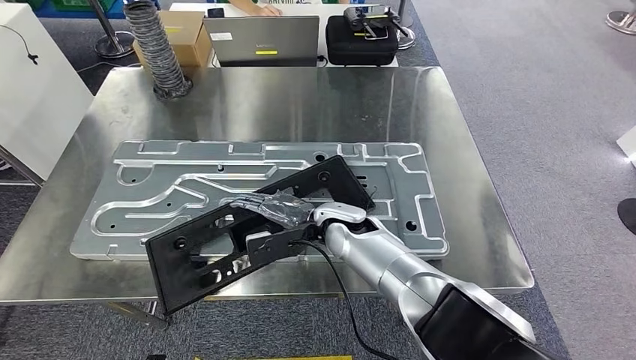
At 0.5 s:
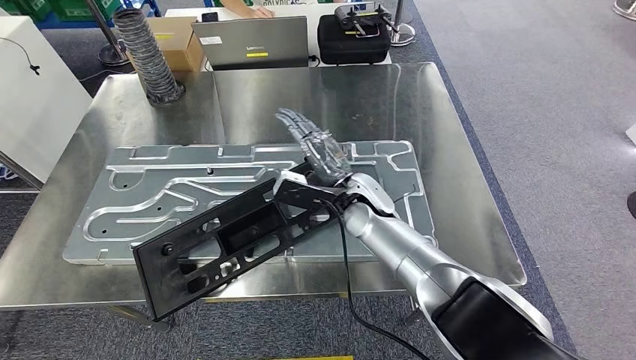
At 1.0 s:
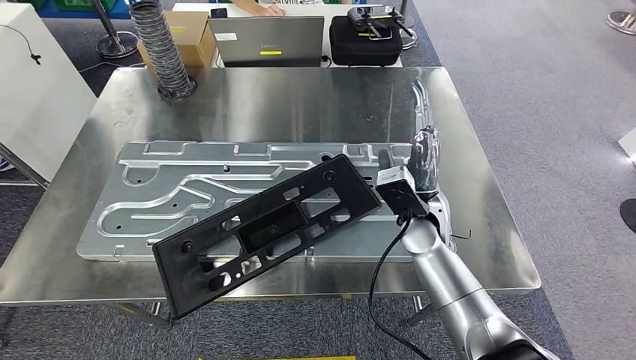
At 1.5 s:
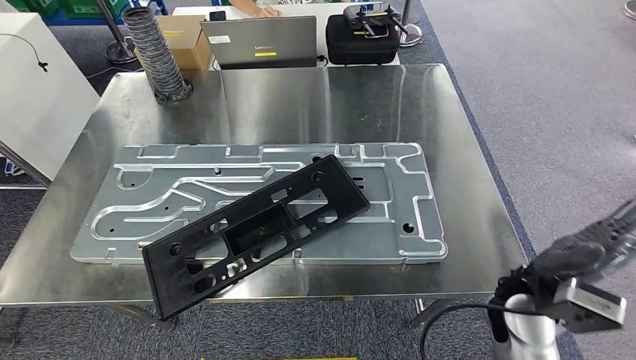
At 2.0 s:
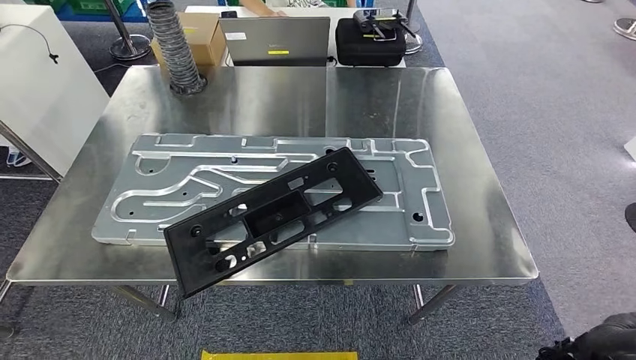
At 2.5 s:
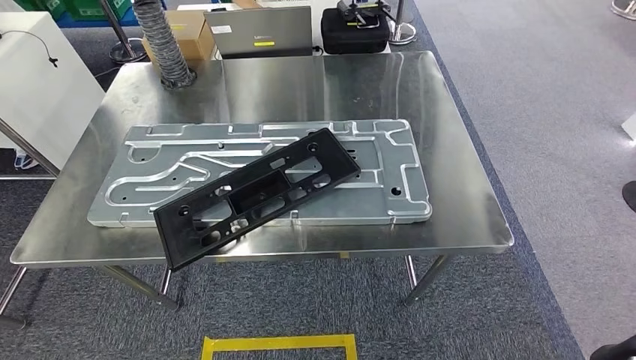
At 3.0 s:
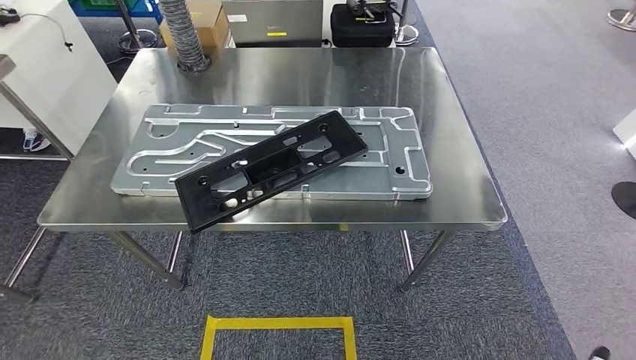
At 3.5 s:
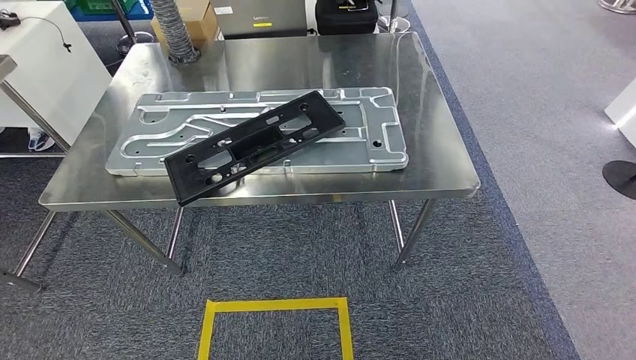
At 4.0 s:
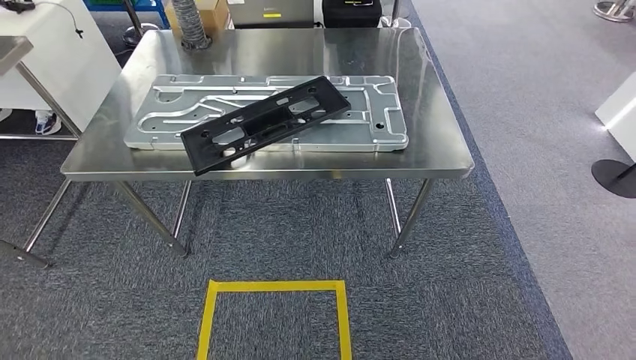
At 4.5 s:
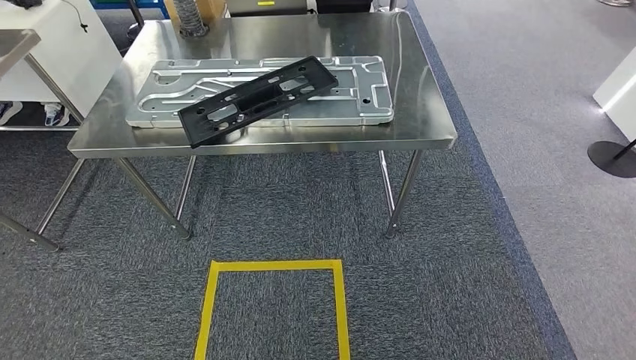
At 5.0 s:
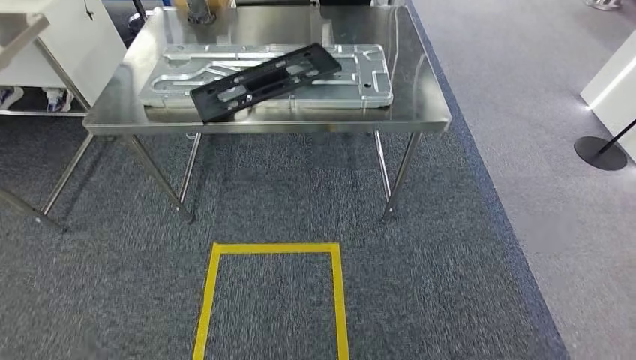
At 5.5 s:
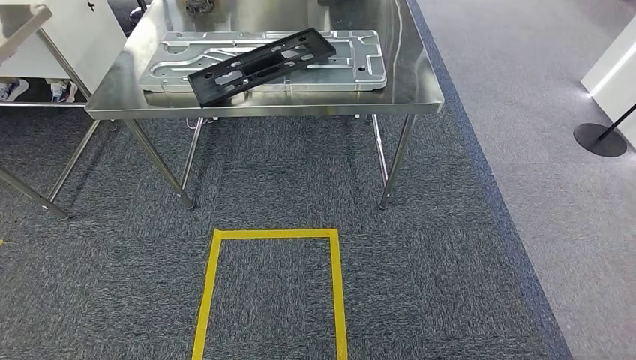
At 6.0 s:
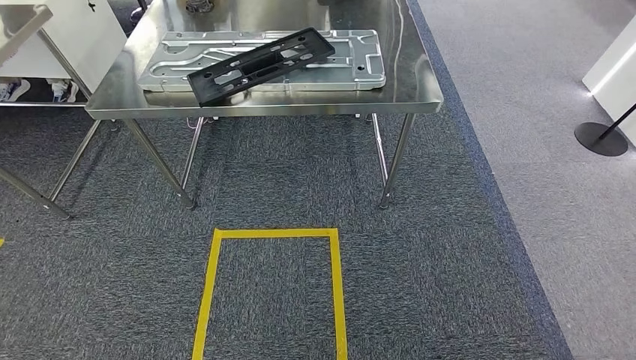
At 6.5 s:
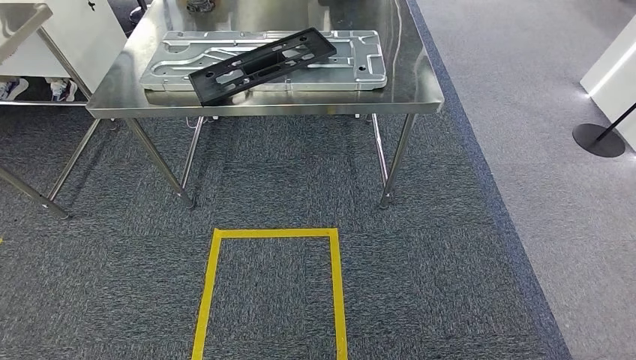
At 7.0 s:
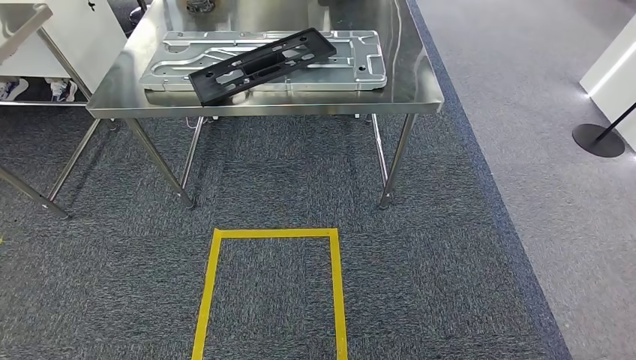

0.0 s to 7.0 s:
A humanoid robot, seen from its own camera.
Step, 2.0 to 7.0 s: Move to the initial position of the shelf.
5.0 to 7.0 s: There are only small adjustments of the hands.

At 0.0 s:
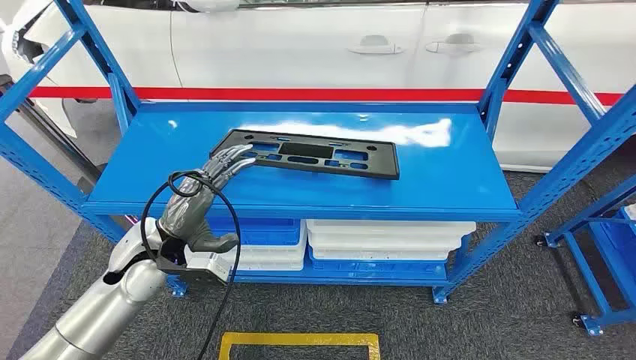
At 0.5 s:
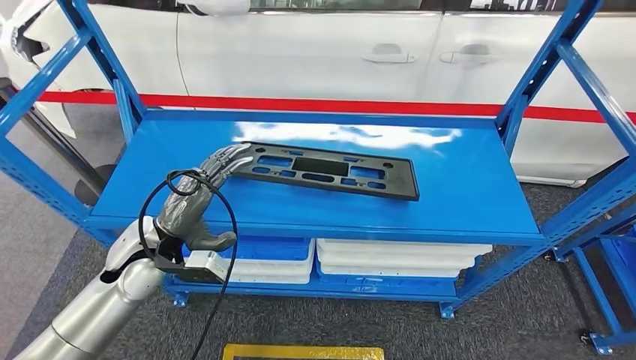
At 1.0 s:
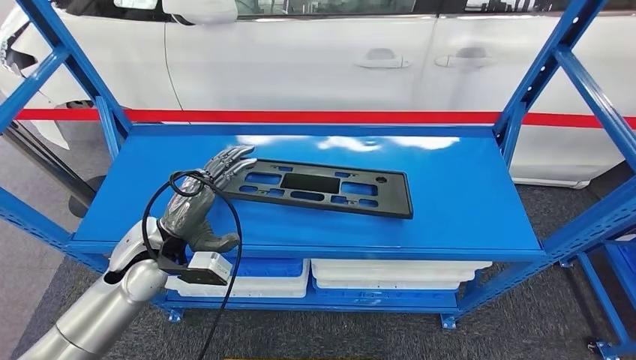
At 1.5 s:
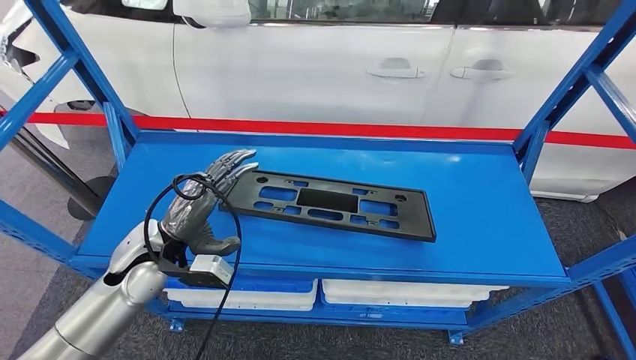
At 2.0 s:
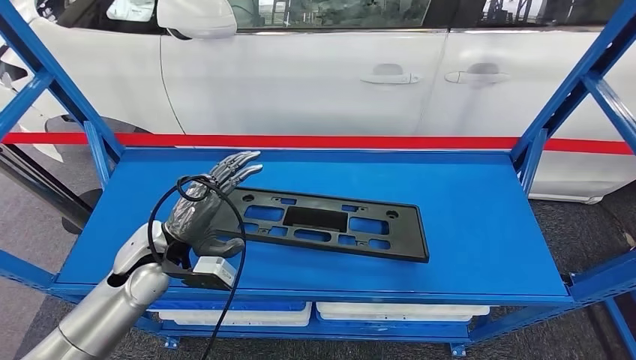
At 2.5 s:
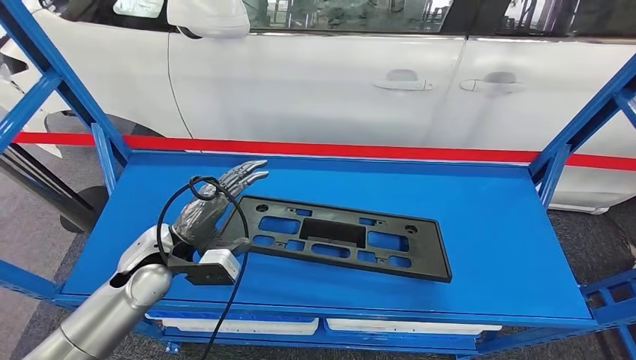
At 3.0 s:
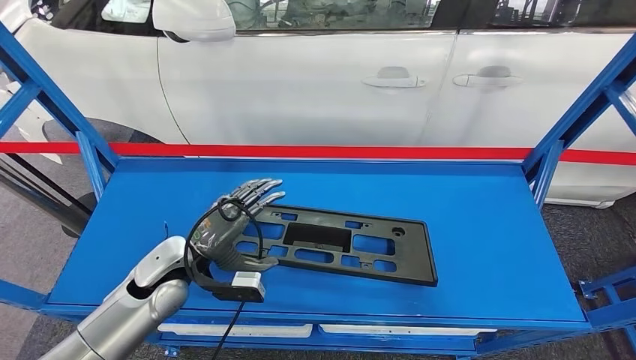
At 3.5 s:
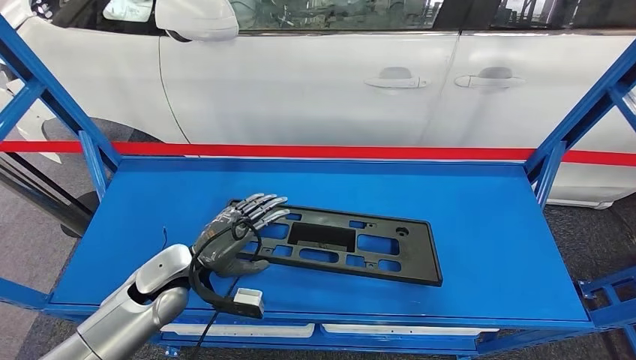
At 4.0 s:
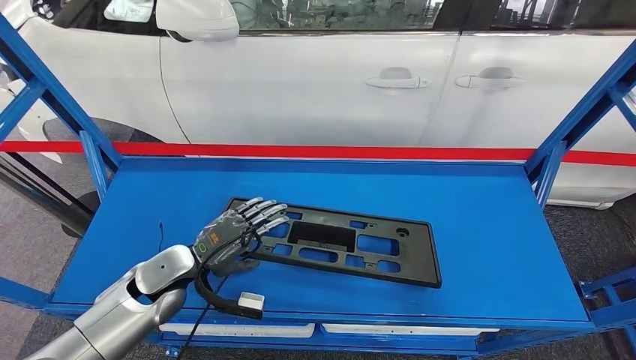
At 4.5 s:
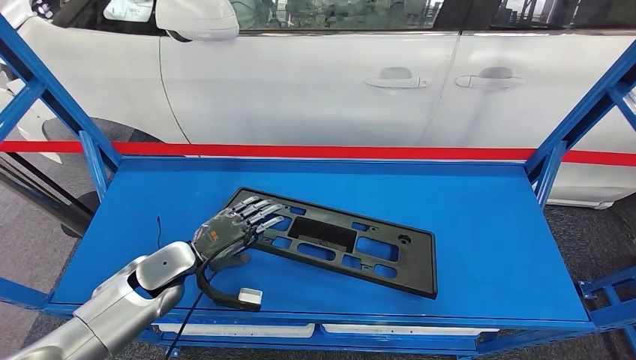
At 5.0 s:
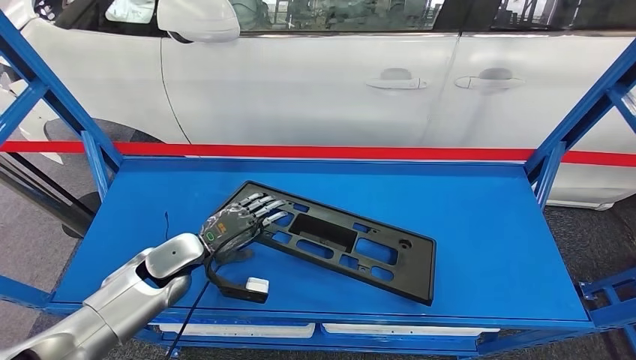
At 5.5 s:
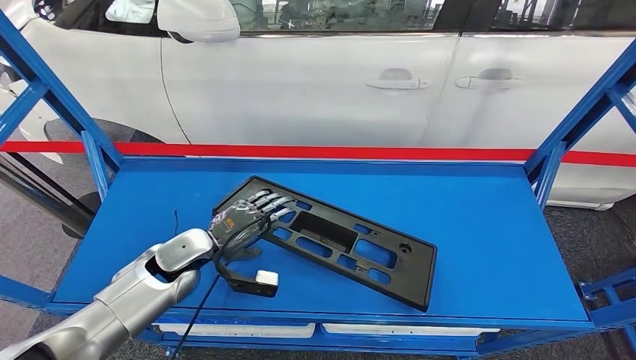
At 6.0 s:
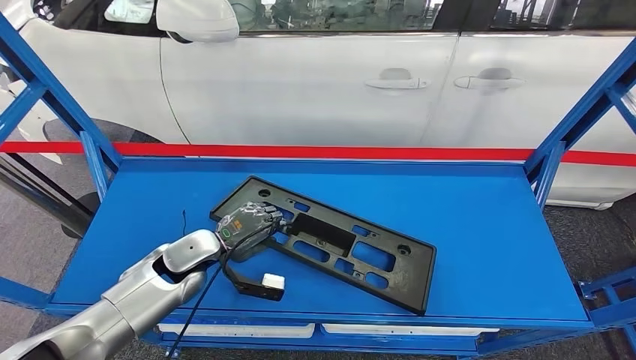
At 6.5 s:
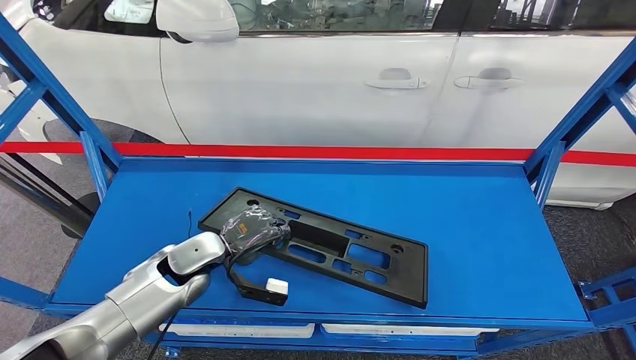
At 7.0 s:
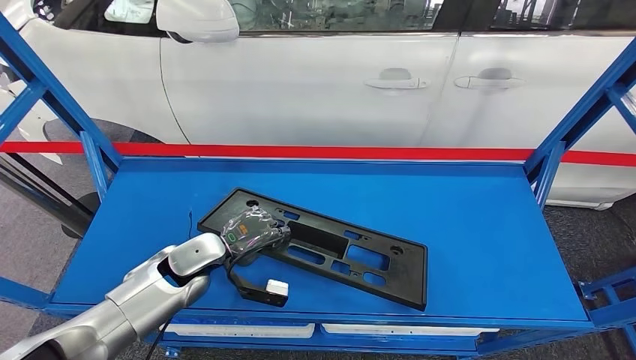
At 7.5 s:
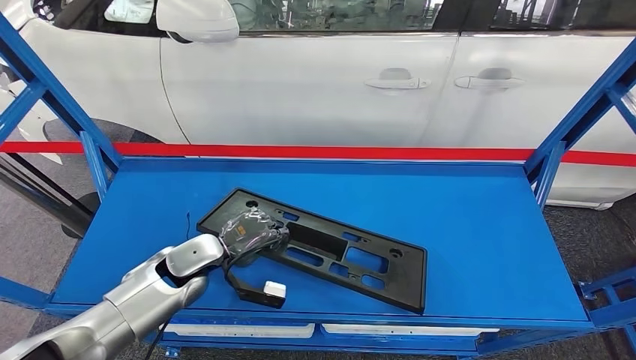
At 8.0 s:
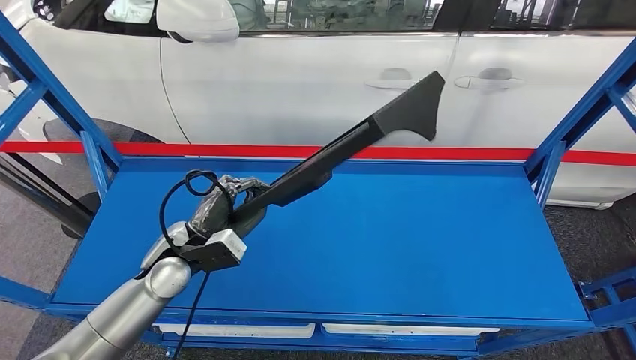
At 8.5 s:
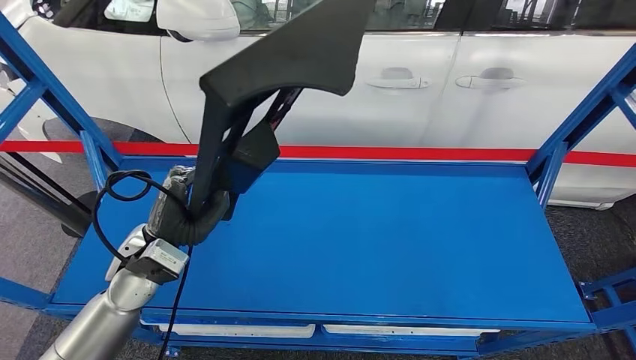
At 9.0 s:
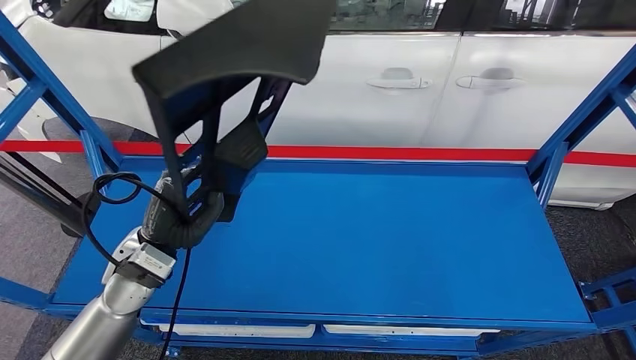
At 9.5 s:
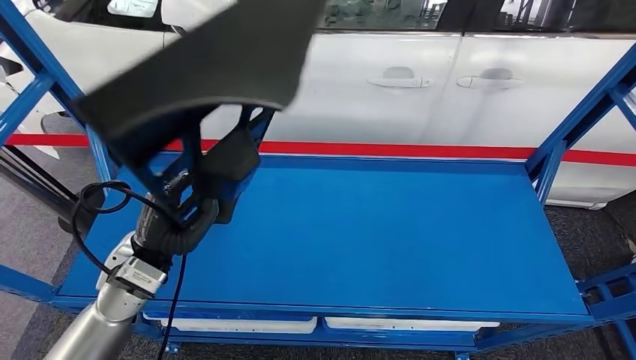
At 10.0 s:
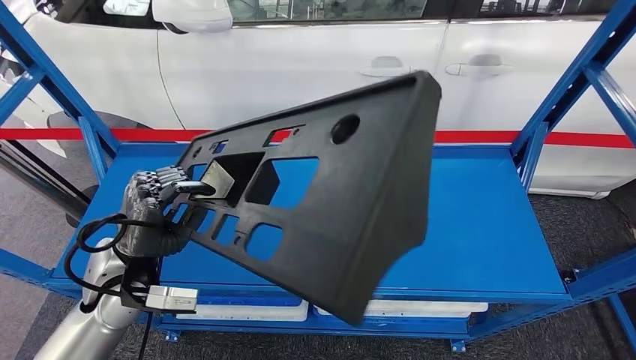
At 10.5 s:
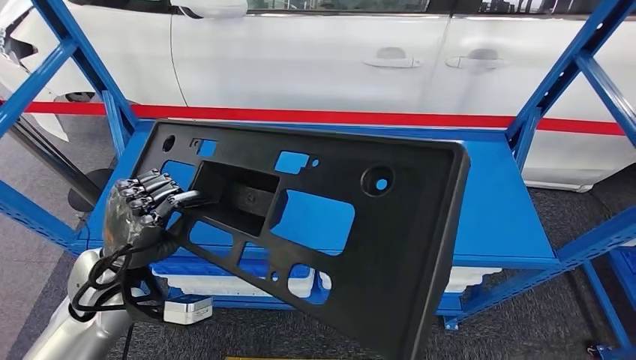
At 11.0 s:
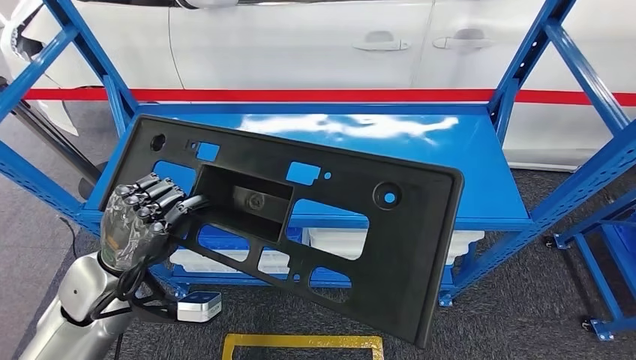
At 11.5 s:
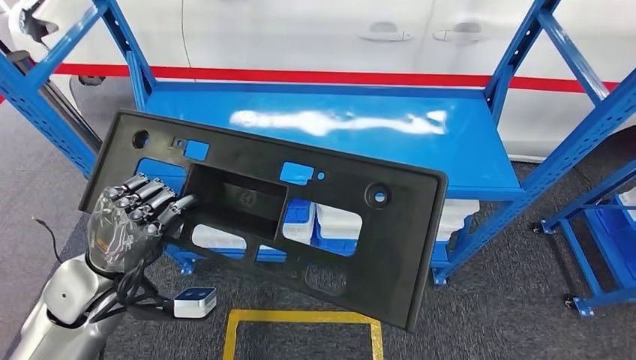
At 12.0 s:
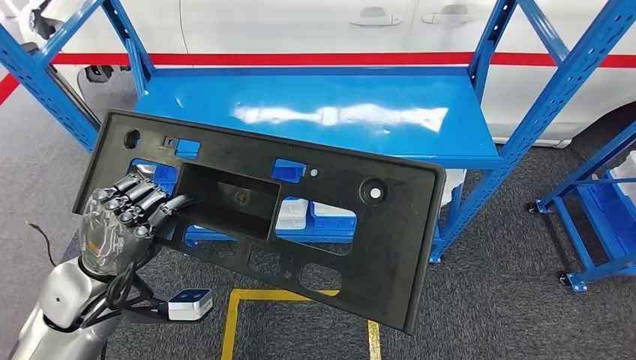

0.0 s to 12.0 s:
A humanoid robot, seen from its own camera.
Step, 0.0 to 10.5 s: Pick up the large material from the shelf.
4.0 to 6.0 s: The hands make only small movements.

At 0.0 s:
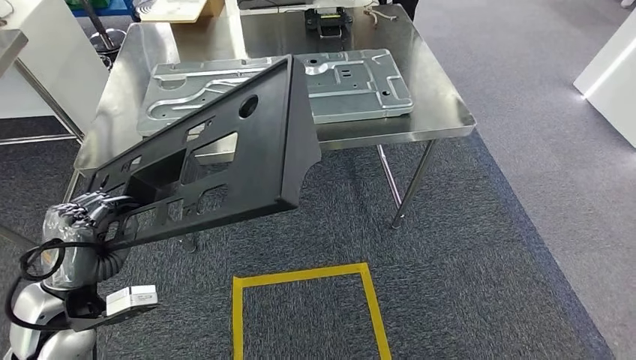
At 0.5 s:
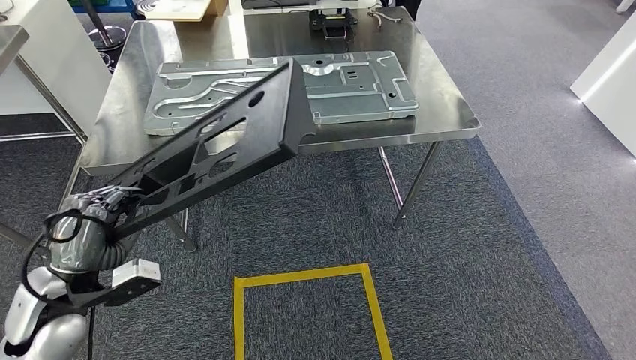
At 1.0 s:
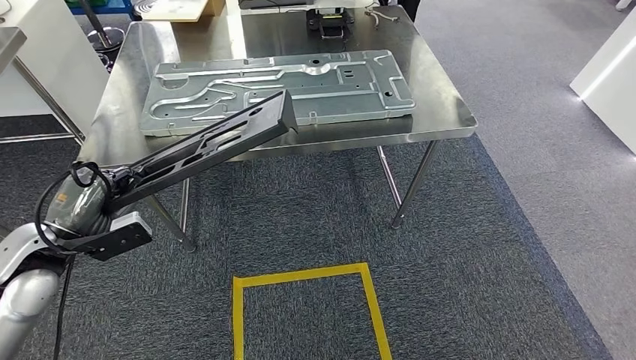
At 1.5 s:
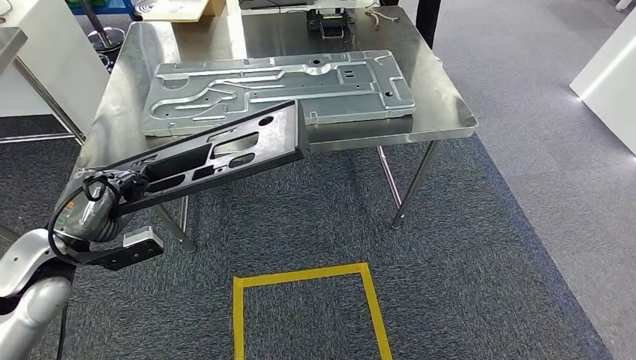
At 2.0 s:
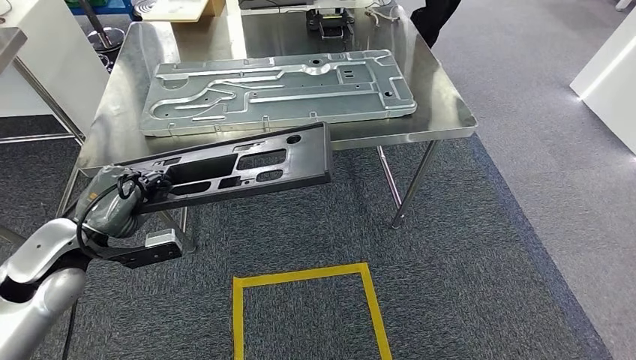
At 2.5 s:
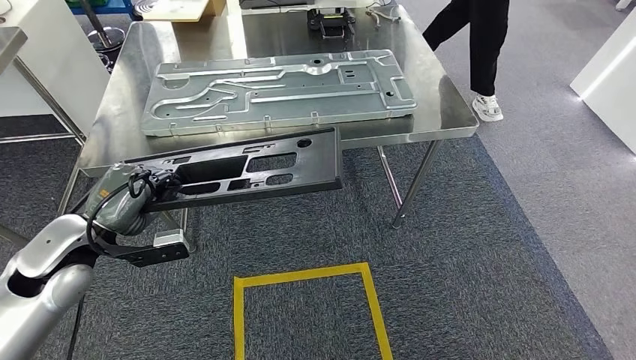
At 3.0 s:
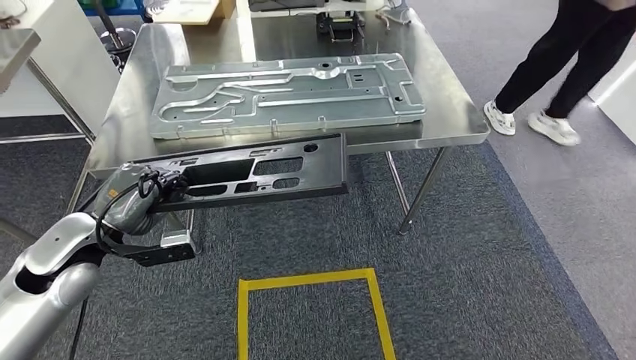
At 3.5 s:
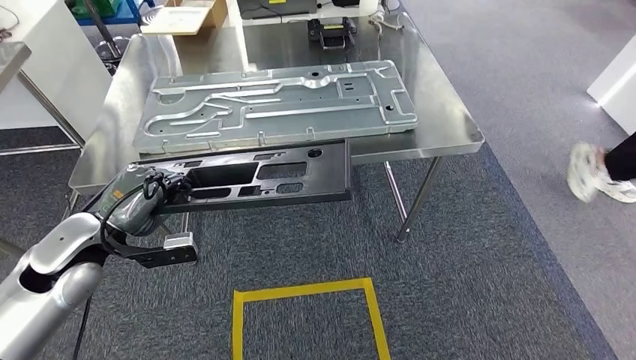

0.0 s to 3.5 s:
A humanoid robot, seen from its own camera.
0.0 to 2.0 s: The left hand moves forward, some 5 cm.
